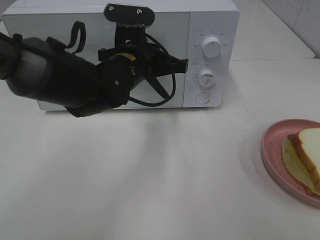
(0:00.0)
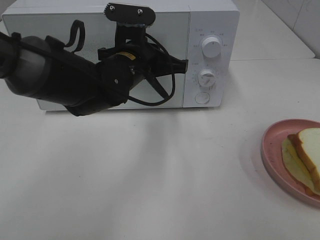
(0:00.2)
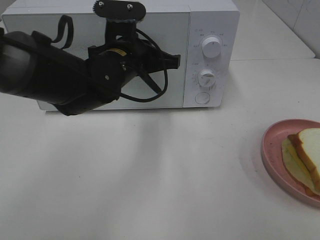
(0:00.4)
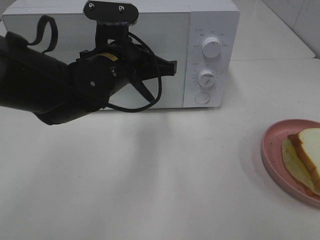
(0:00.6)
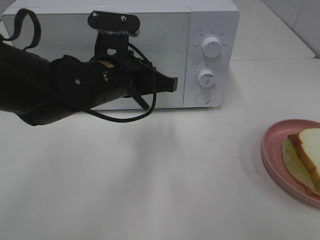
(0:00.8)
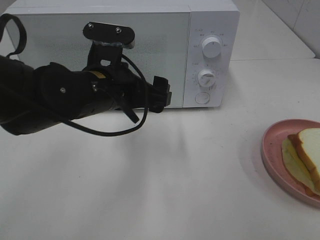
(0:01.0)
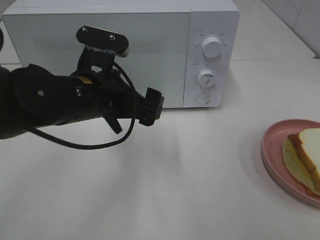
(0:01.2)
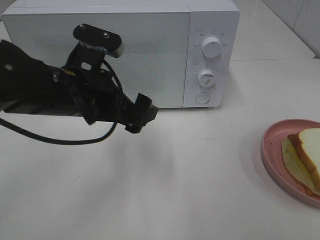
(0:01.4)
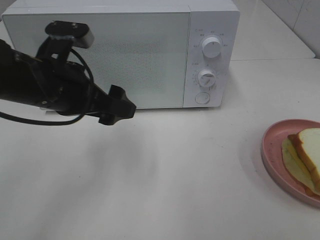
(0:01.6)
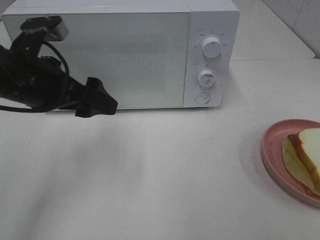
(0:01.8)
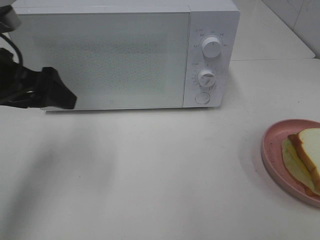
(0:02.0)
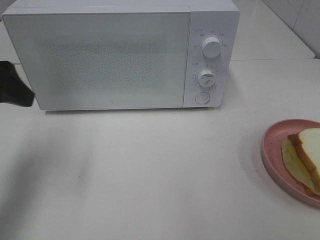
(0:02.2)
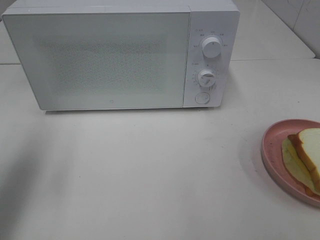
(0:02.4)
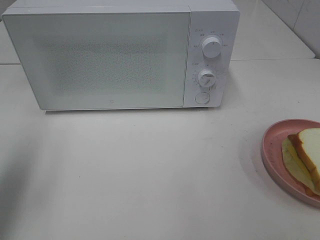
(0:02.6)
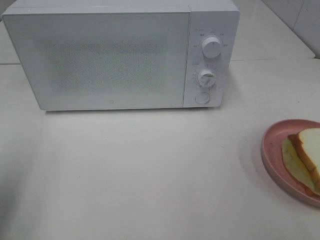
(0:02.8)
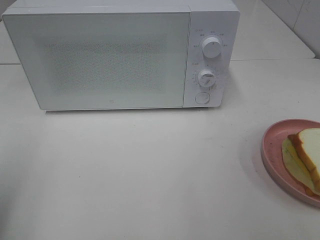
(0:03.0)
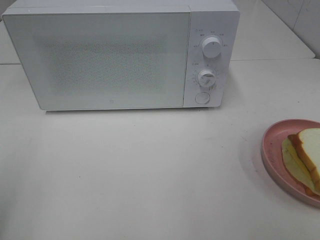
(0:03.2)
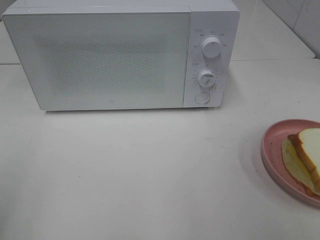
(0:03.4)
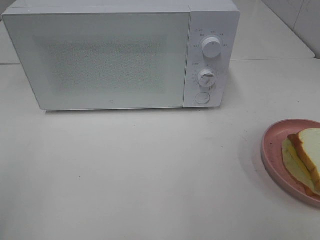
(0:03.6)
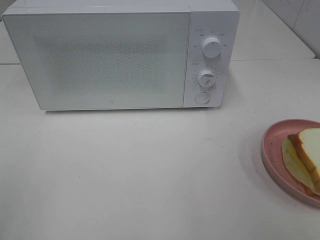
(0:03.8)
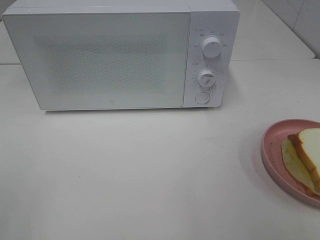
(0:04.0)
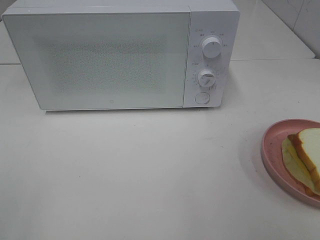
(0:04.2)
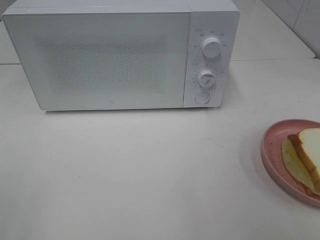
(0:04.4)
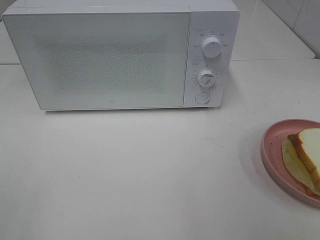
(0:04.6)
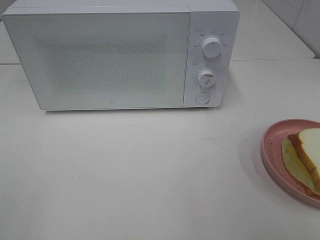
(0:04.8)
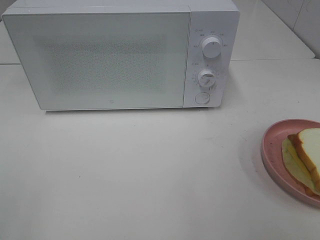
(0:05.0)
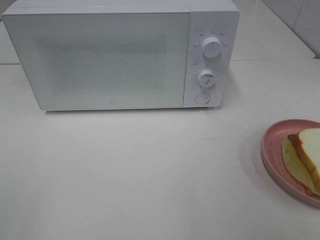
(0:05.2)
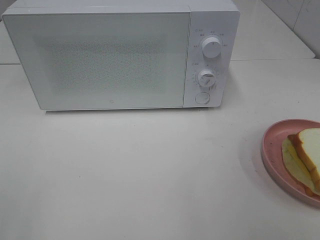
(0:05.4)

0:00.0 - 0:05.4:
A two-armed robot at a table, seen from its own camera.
Task of the whole recording: Heat Sandwich.
0:00.0 - 0:01.4: The left gripper shifts about 10 cm backward and to the left, and opens its fingers.
0:01.4 - 0:02.8: The left gripper shifts some 25 cm to the left and backward.
0:02.8 - 0:04.0: The left gripper heads backward, covering roughly 15 cm.
0:04.0 - 0:05.4: Both grippers stay put.
